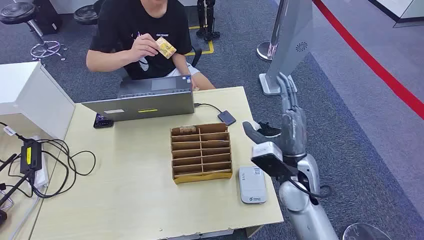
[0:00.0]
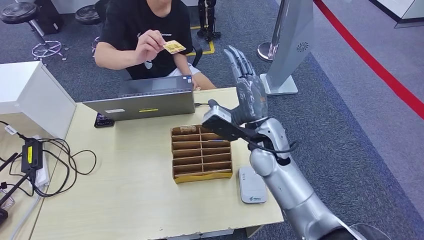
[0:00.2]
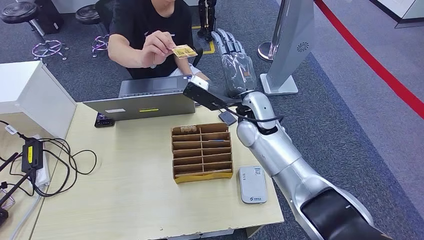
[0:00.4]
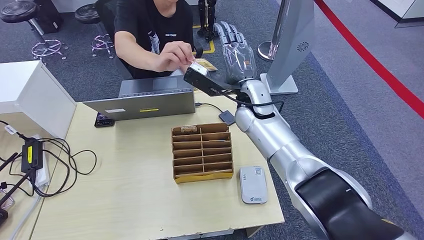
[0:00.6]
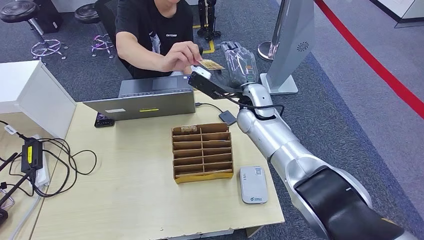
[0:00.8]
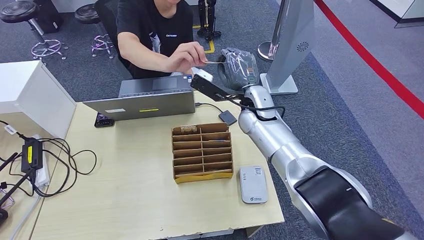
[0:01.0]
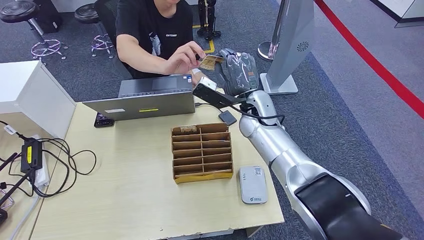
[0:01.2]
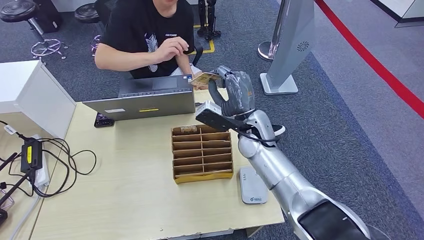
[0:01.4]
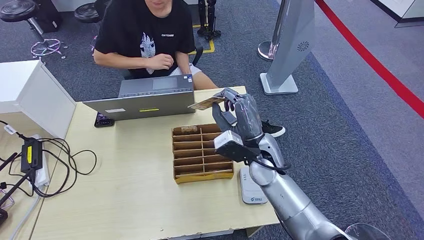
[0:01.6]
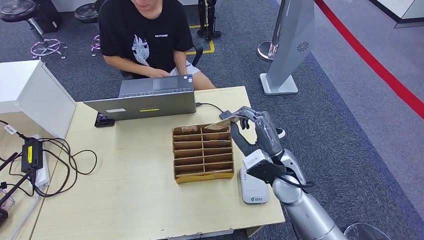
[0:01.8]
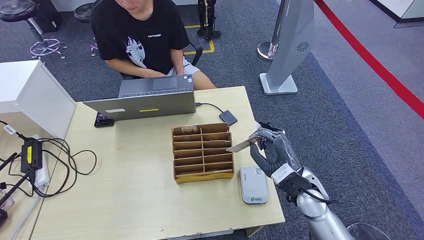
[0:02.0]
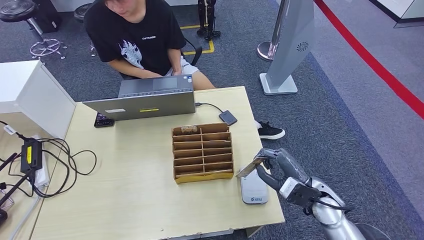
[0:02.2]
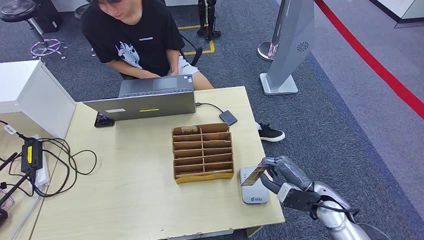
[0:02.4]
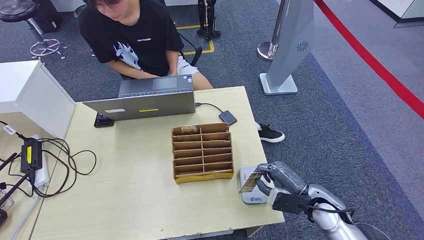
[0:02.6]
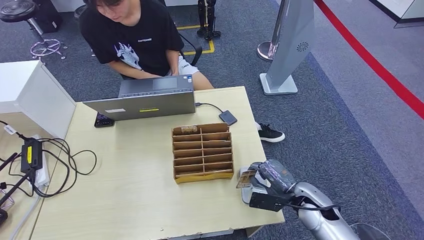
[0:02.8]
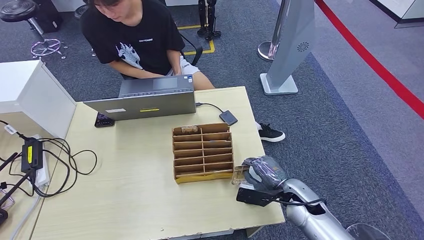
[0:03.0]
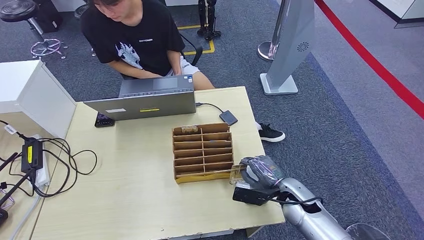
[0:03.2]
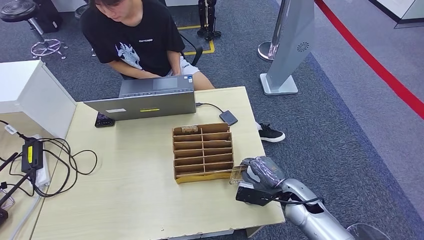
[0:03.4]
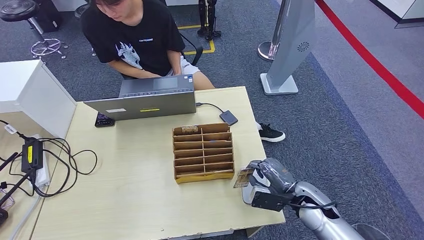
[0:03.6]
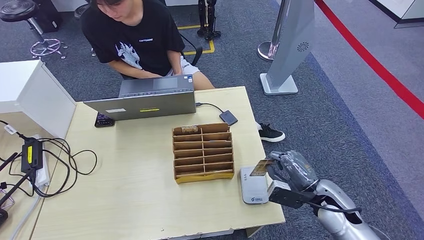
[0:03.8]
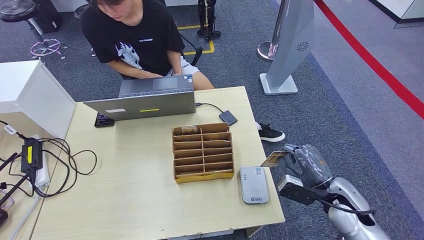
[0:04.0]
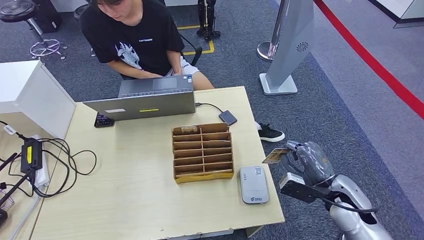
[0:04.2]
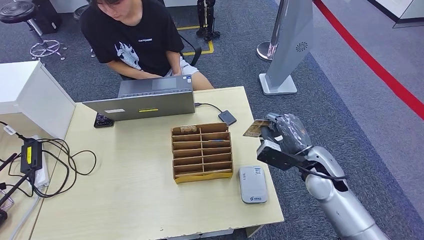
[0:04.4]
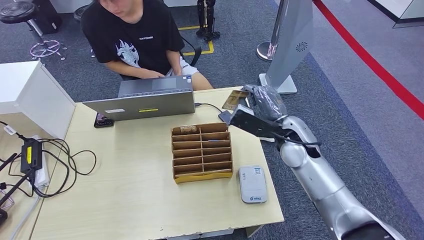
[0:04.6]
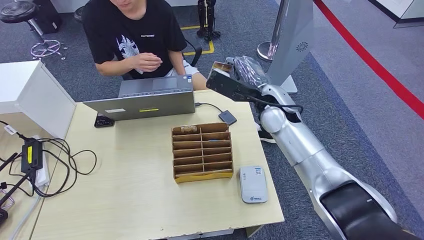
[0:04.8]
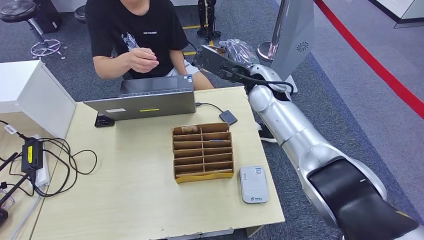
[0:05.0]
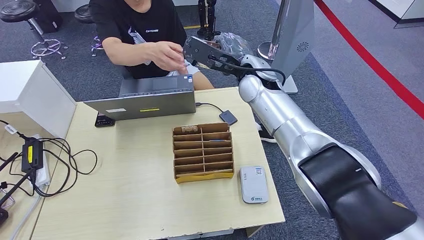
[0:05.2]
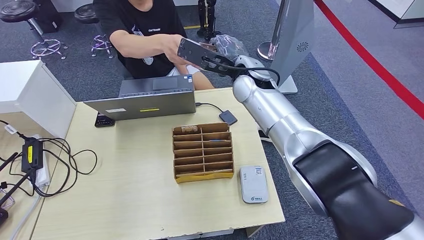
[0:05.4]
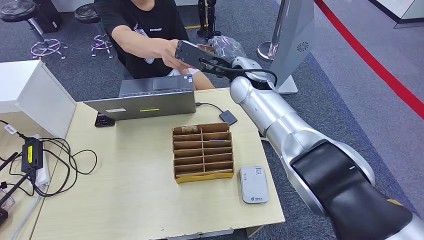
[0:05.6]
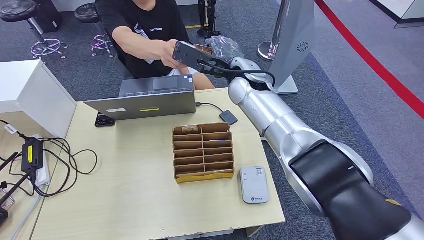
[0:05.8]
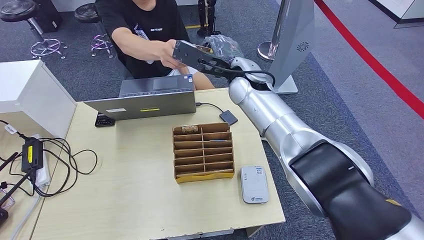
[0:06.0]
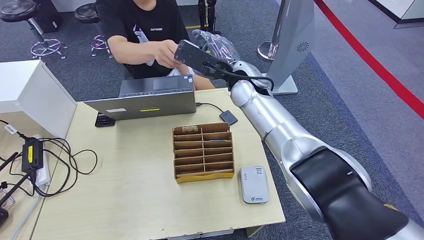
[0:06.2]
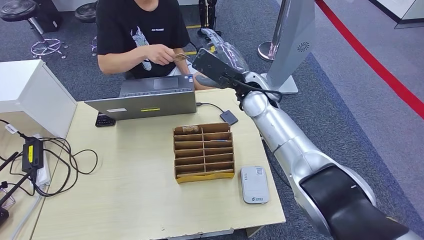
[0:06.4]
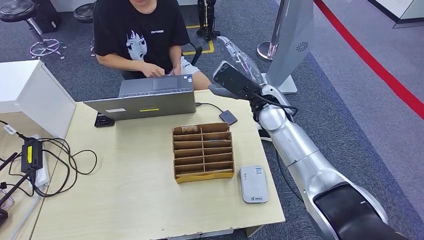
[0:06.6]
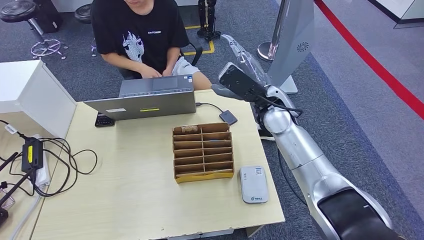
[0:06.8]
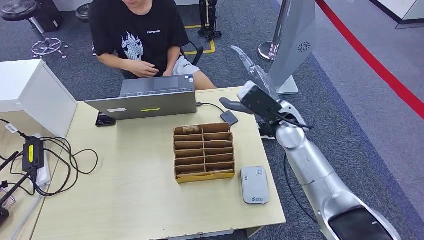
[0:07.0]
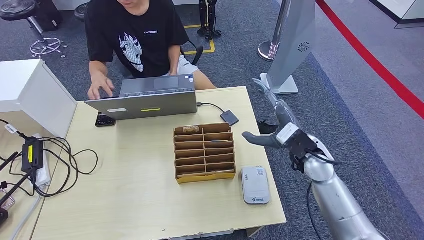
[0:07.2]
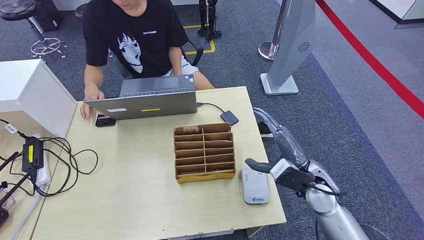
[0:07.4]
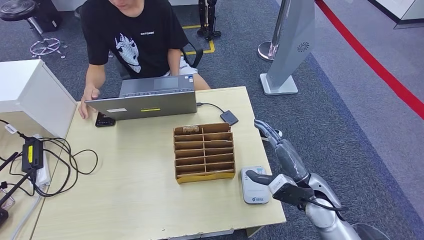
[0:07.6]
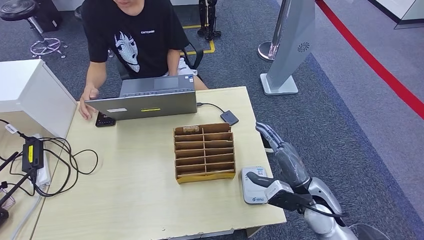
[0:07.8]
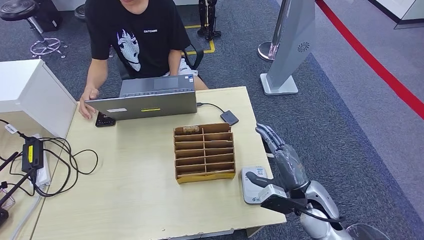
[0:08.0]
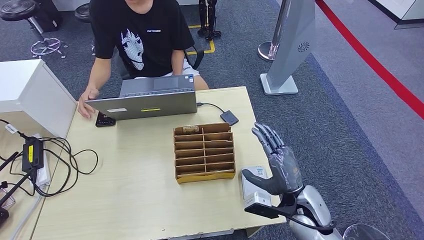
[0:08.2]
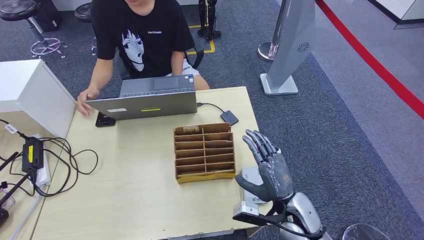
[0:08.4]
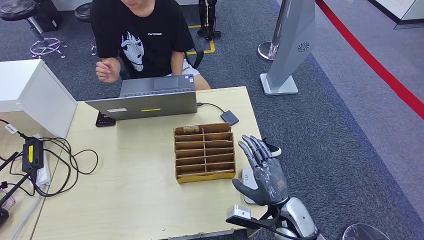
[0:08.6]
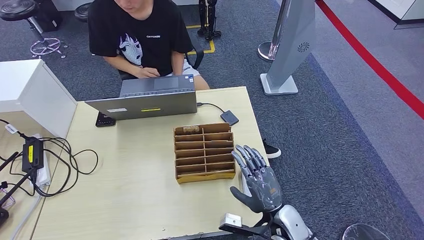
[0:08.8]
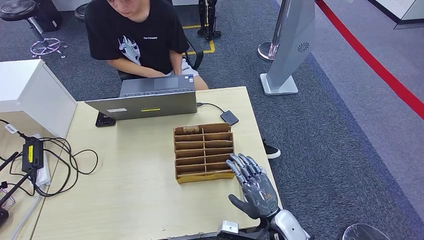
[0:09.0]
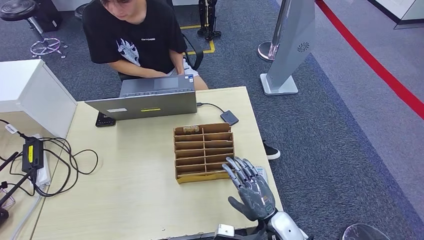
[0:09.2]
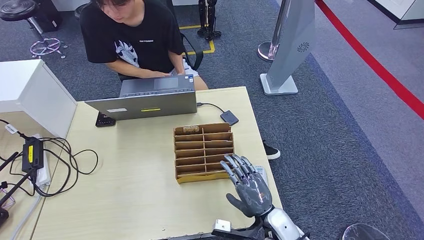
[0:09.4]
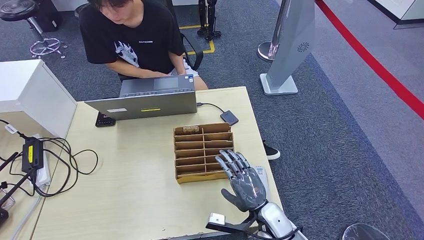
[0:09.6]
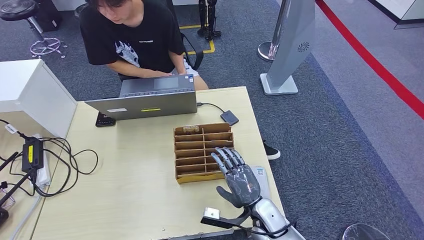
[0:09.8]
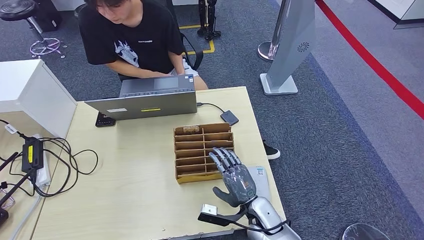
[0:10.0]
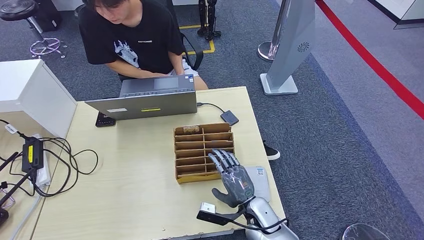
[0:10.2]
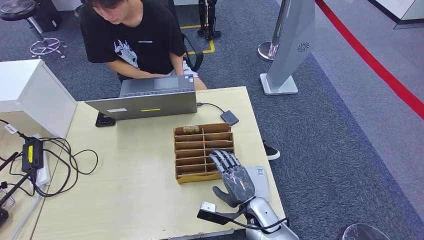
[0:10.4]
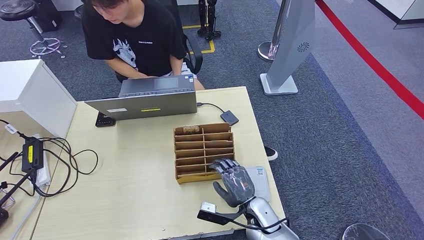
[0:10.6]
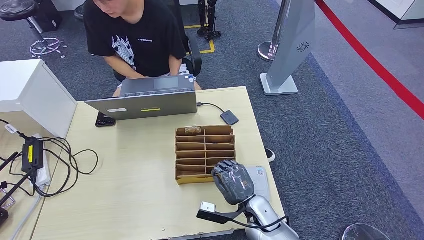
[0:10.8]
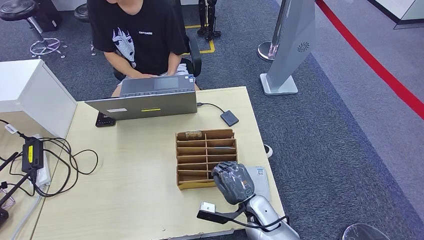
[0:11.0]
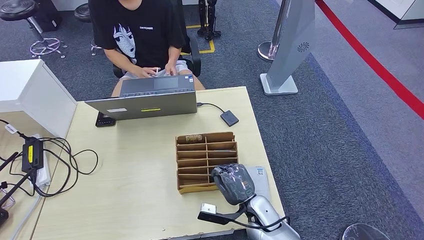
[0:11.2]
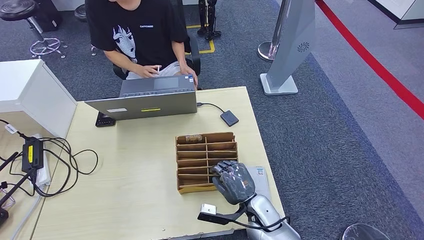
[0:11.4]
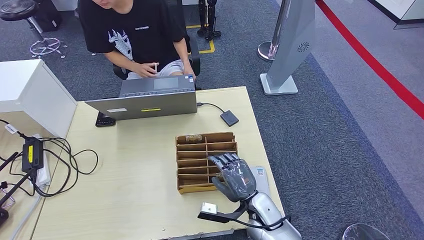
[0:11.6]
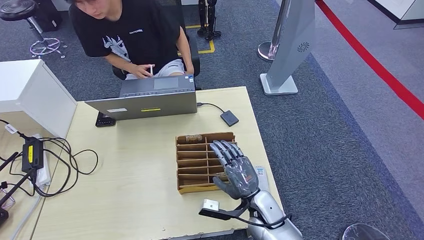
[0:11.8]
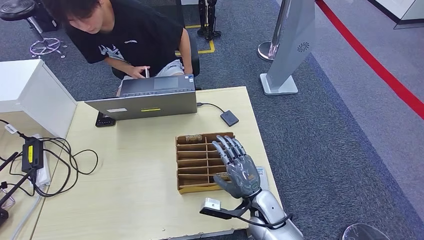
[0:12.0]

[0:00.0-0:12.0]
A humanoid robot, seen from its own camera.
Step, 0:00.0 to 0:00.8: Take the ID card from the person's hand.
Step, 0:01.0 to 0:05.2: Place the ID card on the card reader.
Step, 0:05.4 to 0:07.8: Hand the ID card to the person.
0:01.6 to 0:03.0: The right hand travels to the right, downward and backward by approximately 20 cm.
0:03.0 to 0:04.4: The right hand travels upward by about 10 cm.
0:06.0 to 0:07.6: The left hand heads backward, covering some 5 cm, while the right hand heads backward, downward and to the right, covering approximately 35 cm.
0:07.6 to 0:09.0: The right hand heads downward, to the left and backward, covering some 15 cm.
0:09.0 to 0:10.4: The right hand shifts by about 5 cm.
0:10.4 to 0:12.0: The hands stay close to where they were, moving slightly.

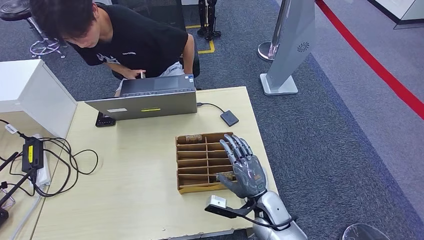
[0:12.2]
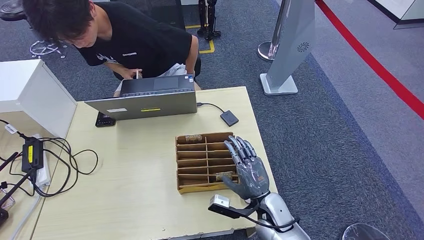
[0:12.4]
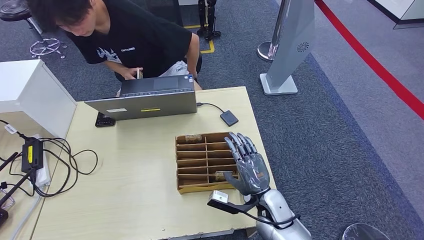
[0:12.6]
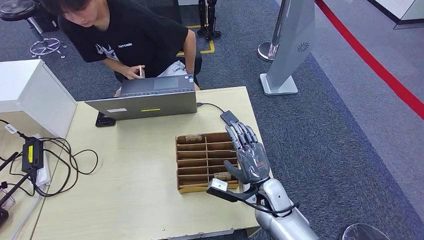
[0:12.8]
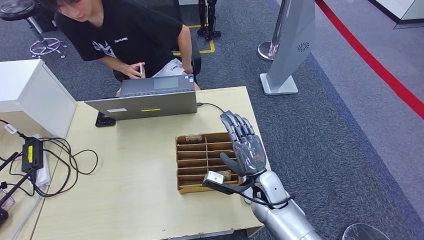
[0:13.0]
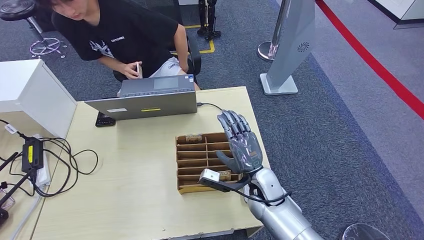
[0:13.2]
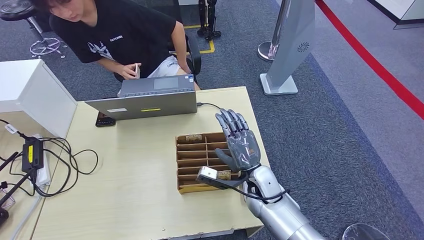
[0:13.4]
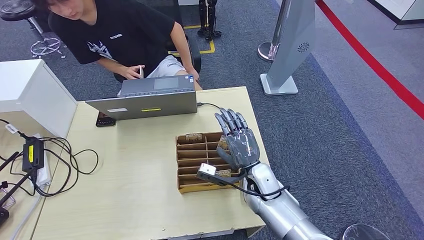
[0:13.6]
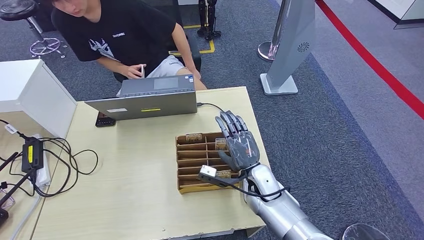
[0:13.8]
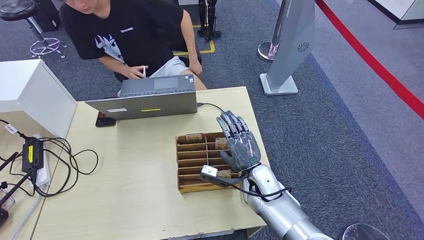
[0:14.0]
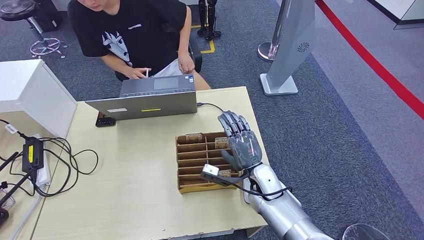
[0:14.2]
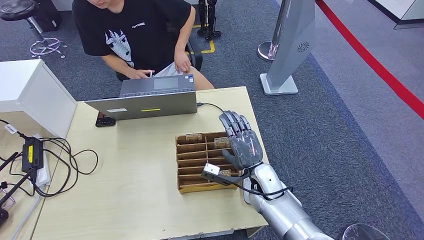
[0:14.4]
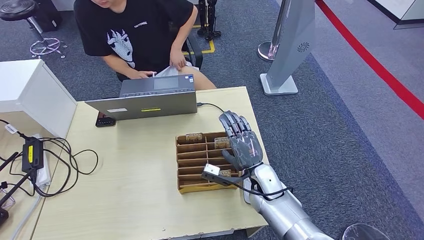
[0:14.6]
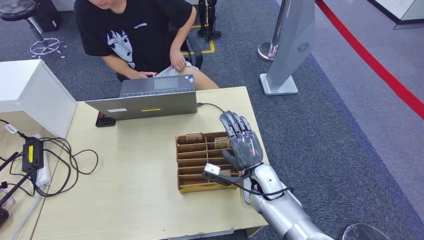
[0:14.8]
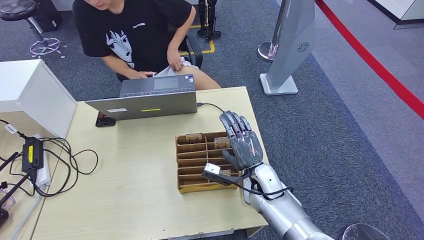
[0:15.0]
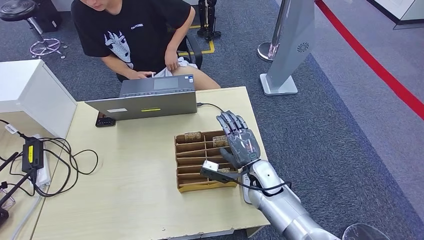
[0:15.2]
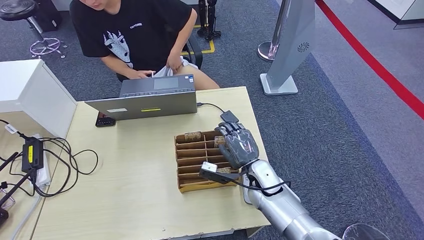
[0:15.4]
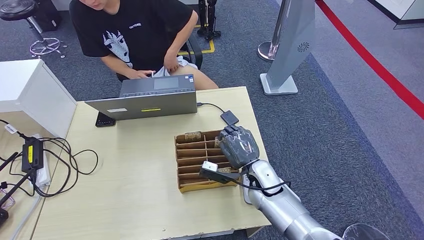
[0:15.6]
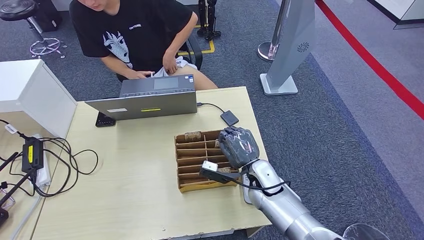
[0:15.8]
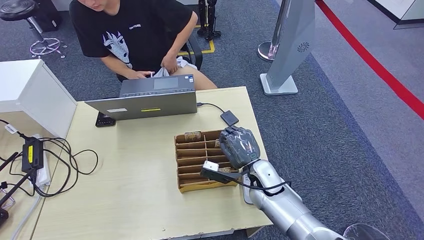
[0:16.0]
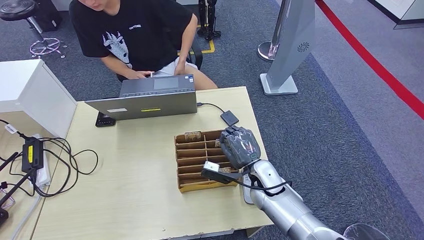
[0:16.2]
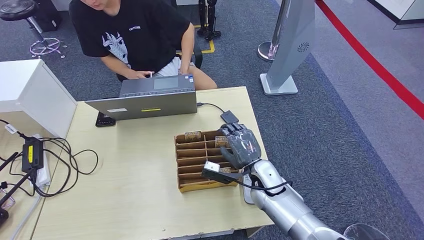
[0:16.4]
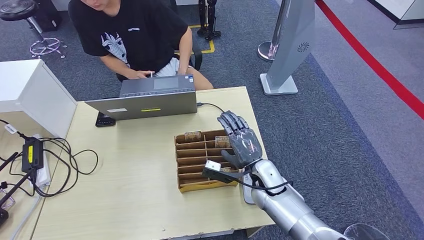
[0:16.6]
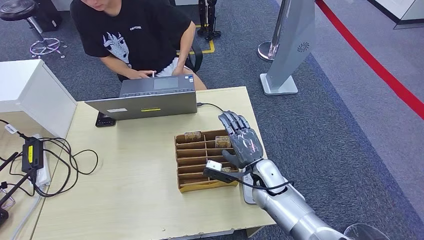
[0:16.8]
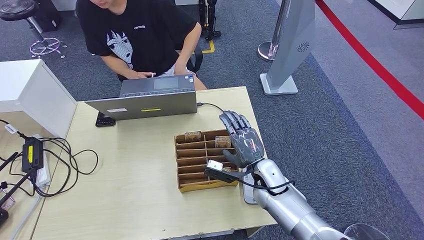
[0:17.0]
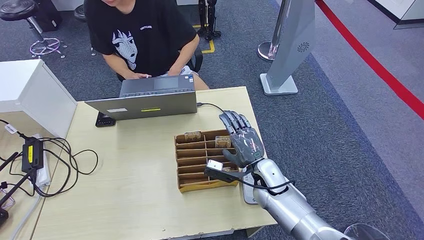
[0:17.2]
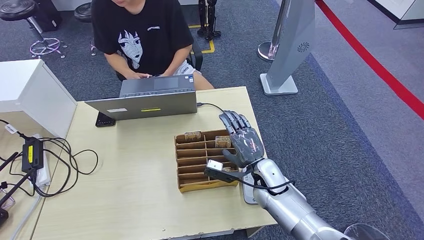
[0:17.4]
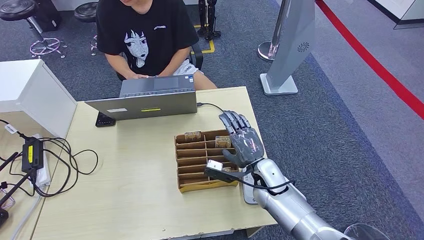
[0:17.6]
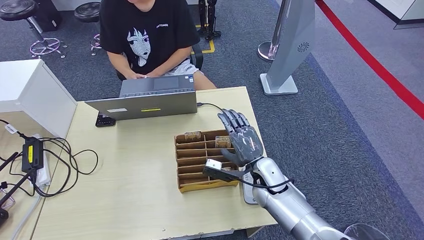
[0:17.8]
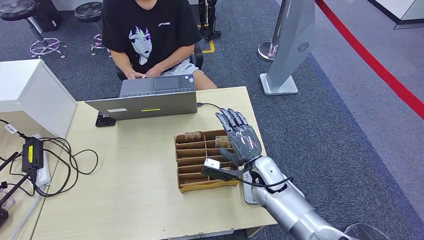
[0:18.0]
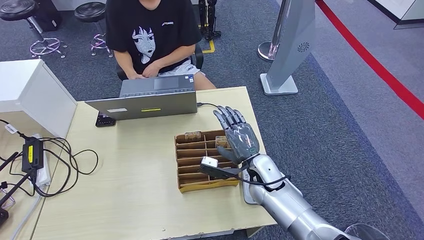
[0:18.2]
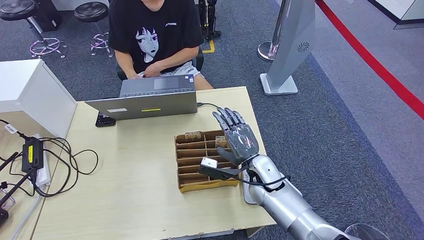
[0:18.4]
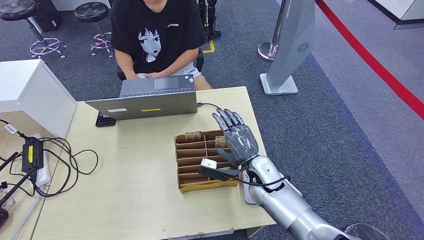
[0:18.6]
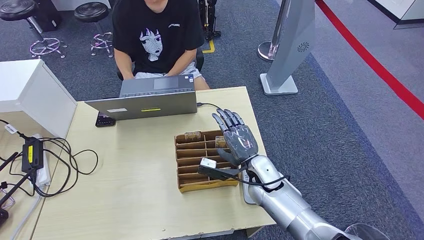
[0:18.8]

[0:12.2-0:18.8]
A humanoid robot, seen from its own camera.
Step, 0:12.2 to 0:15.0: Pick up the room key from the key card box.
0:12.2 to 0:13.8: The right hand heads forward, covering approximately 5 cm.
0:13.8 to 0:18.8: There are only small adjustments of the hands.
